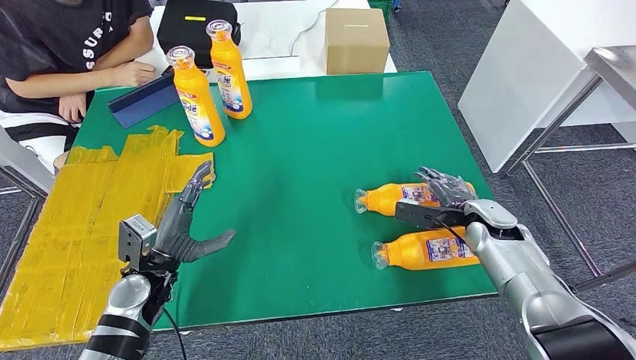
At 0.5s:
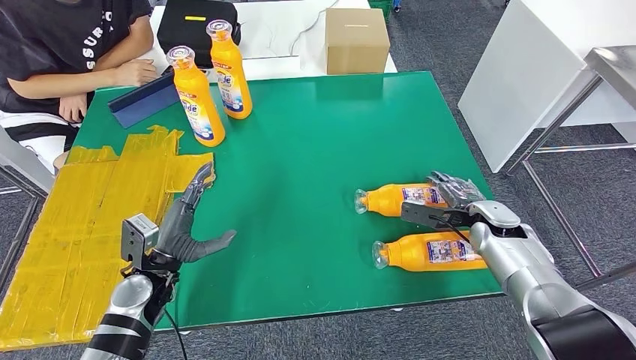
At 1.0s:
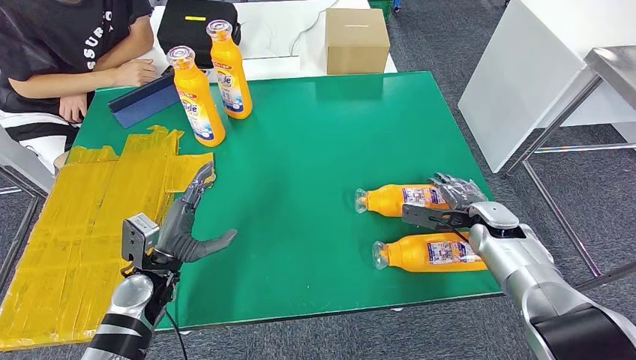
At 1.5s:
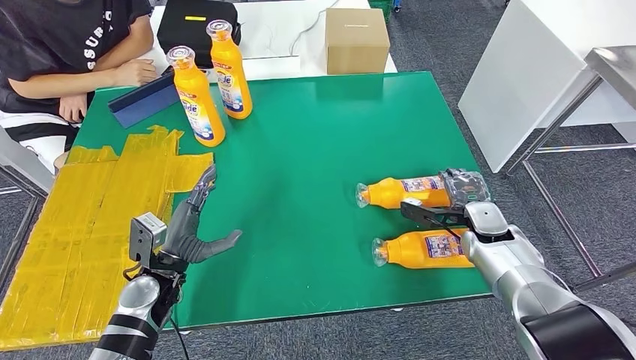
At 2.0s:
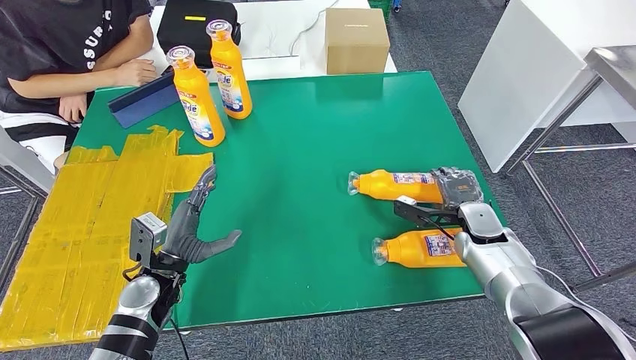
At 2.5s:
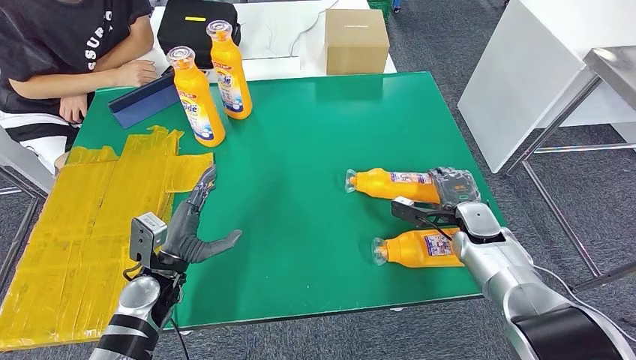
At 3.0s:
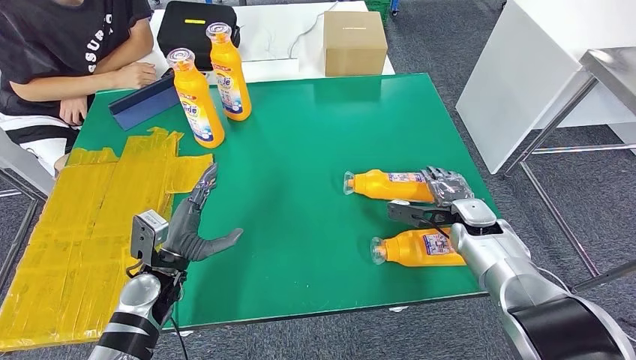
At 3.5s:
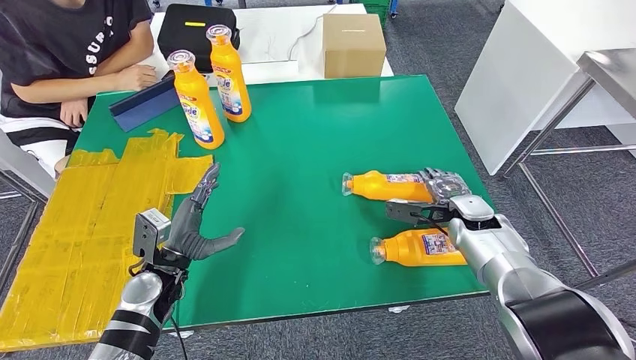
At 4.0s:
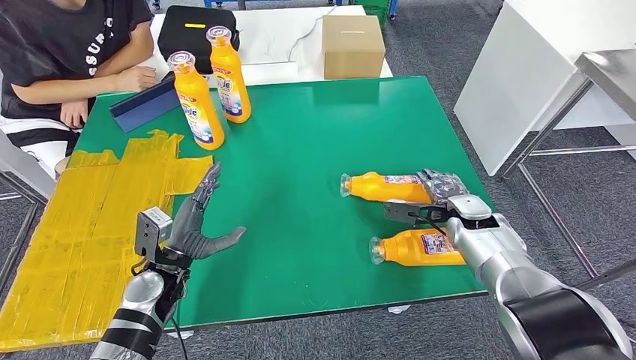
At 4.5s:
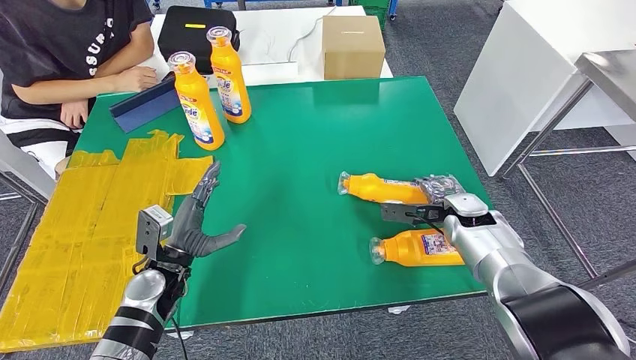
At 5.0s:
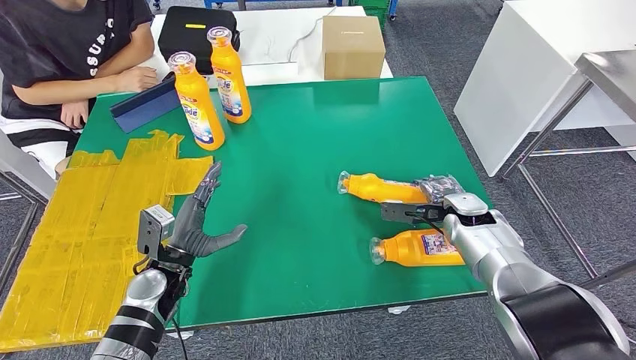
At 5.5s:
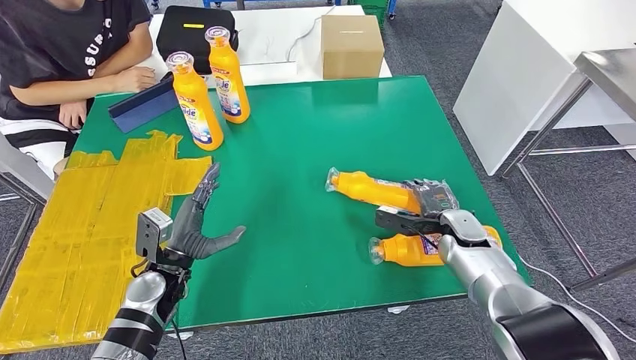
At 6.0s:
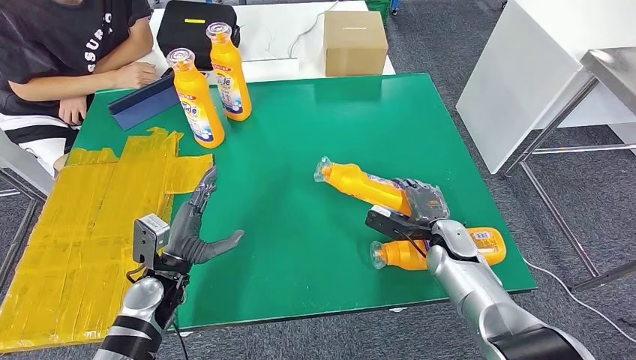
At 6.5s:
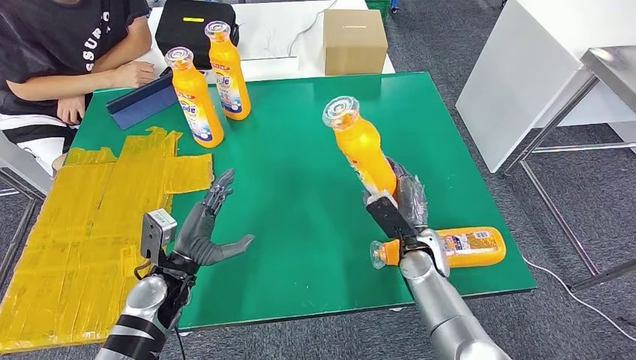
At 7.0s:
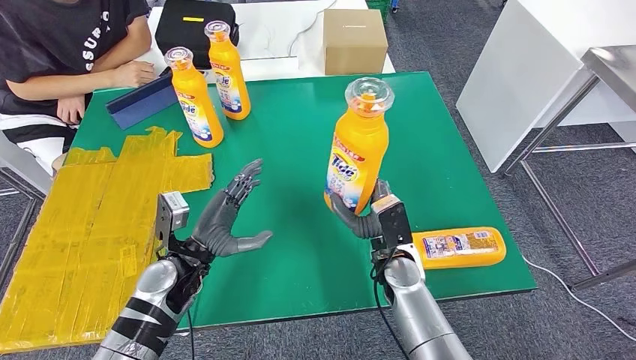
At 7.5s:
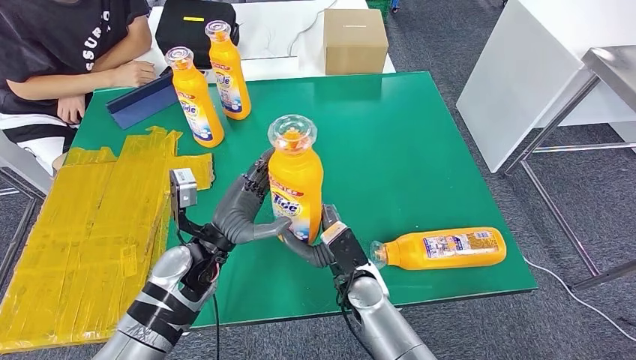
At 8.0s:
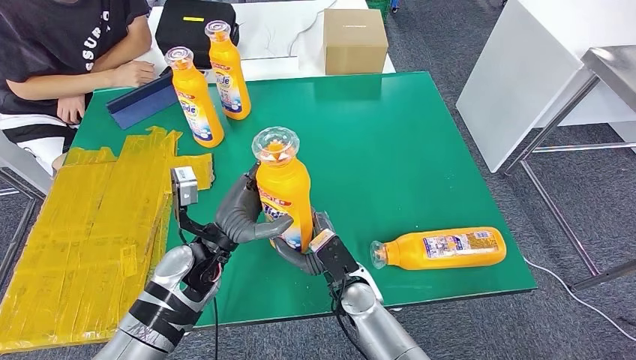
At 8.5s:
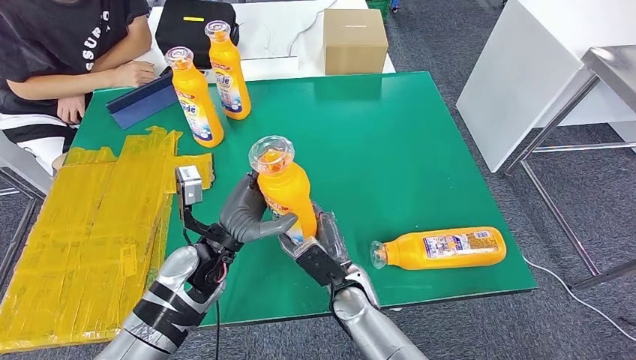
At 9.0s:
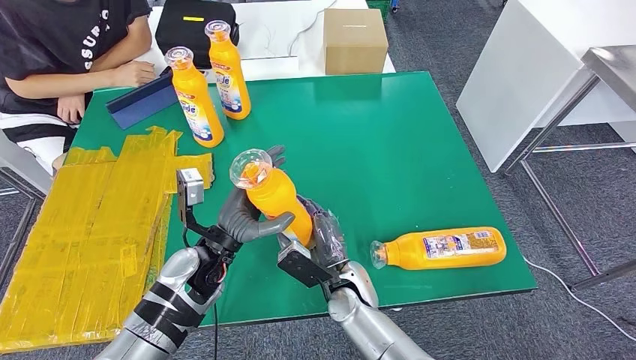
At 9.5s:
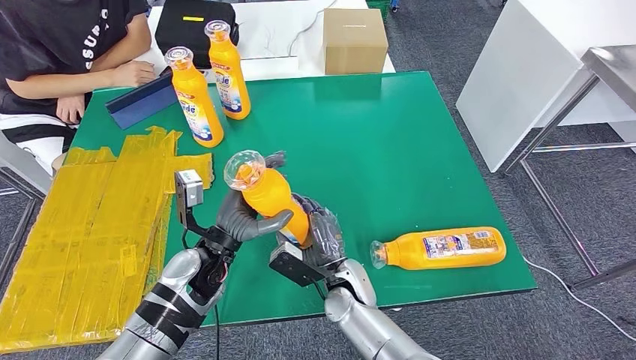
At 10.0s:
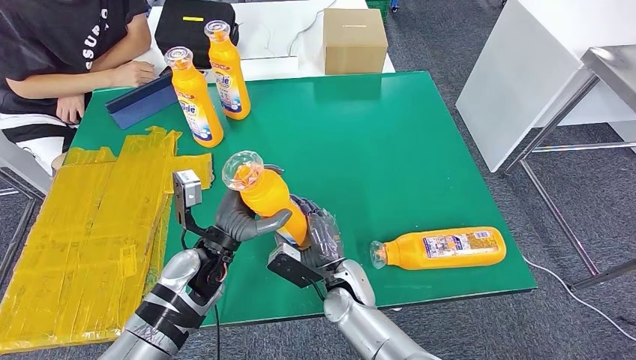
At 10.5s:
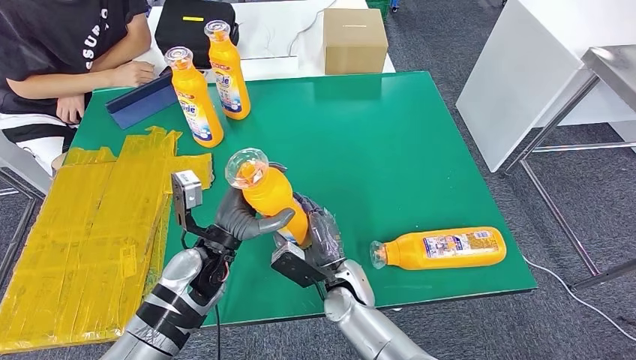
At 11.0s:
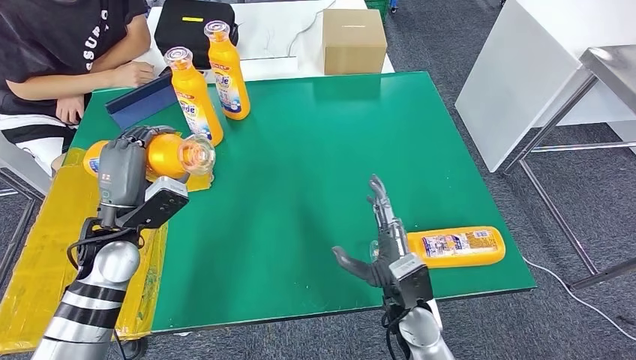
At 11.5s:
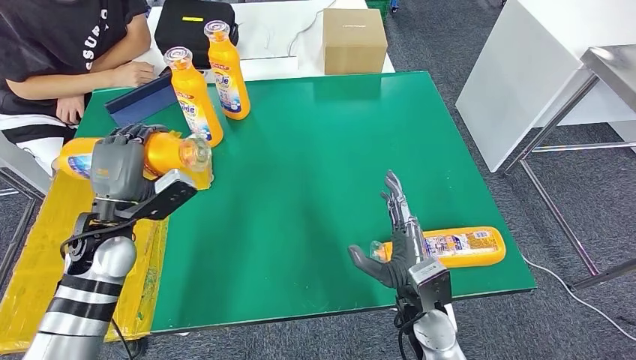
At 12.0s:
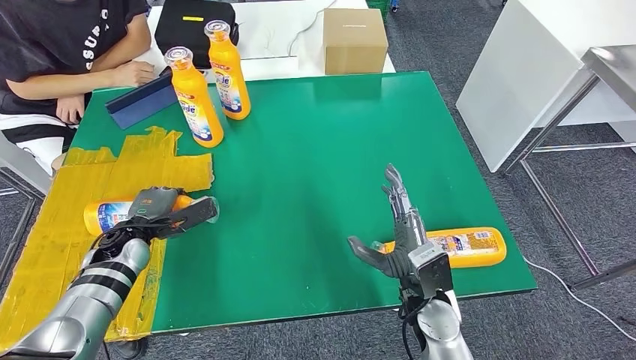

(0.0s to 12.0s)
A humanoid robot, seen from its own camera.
Step, 0.0s - 8.0s: Pick up the bottle from the table.
10.0s - 12.0s: The left hand is displaced to the left by some 20 cm; the right hand shifts some 15 cm to the right and upward.

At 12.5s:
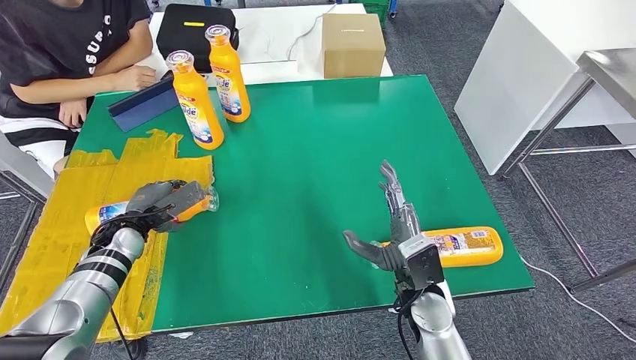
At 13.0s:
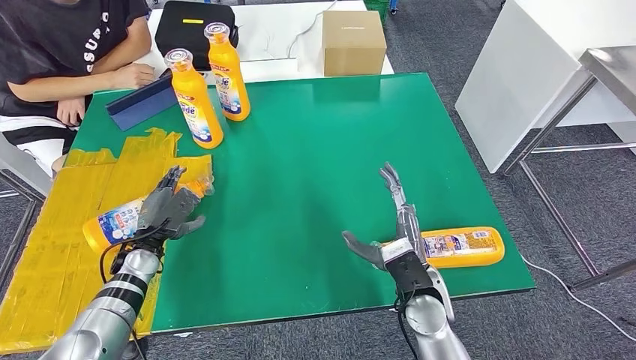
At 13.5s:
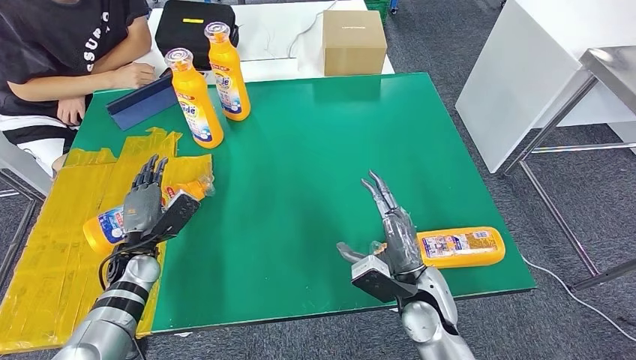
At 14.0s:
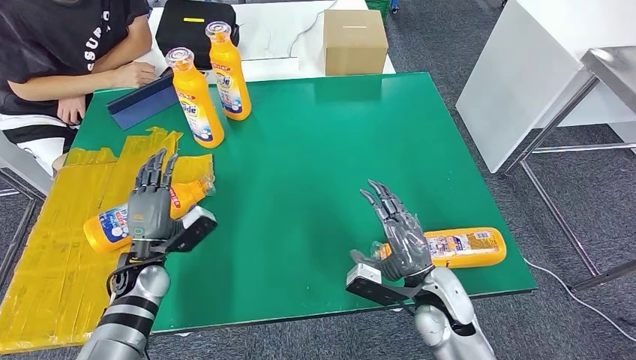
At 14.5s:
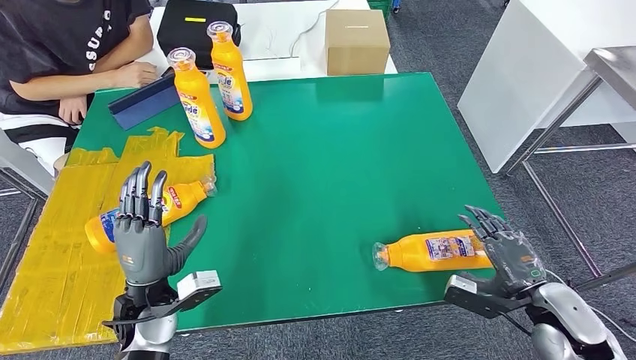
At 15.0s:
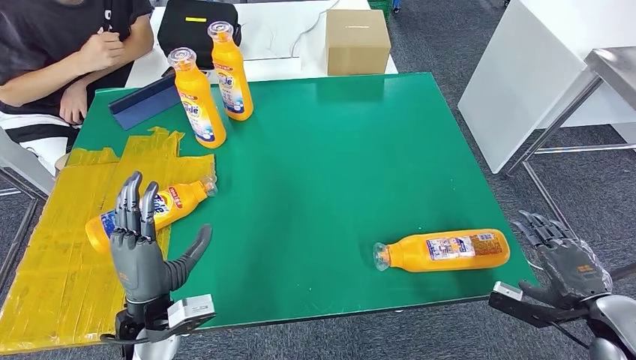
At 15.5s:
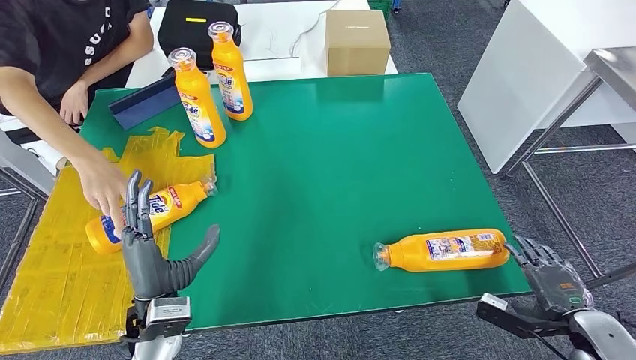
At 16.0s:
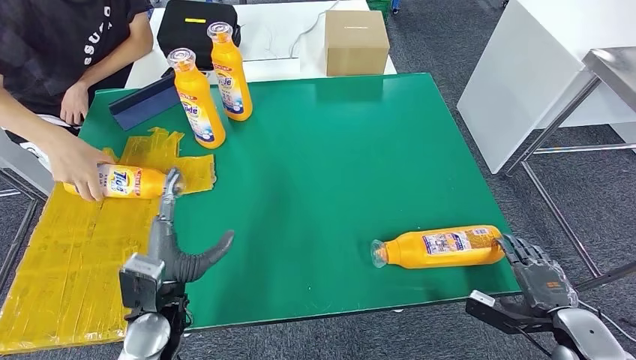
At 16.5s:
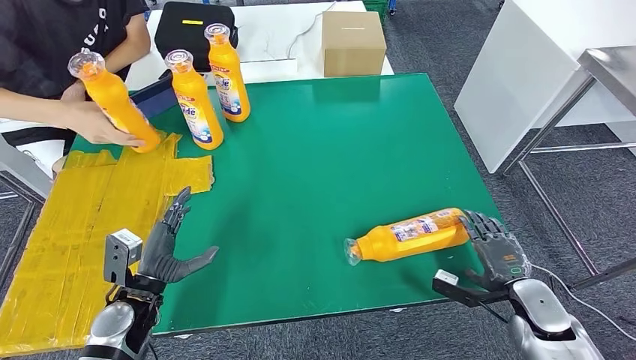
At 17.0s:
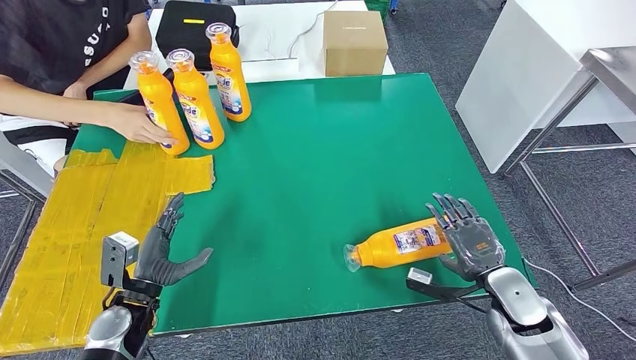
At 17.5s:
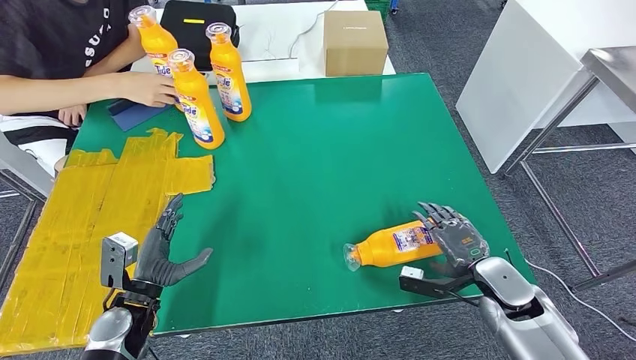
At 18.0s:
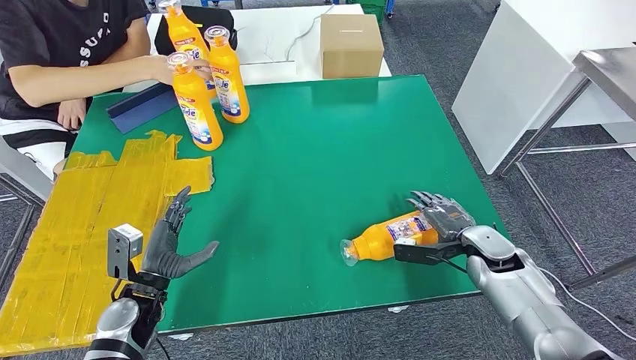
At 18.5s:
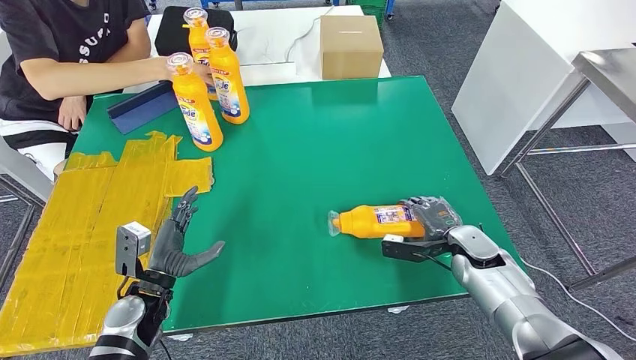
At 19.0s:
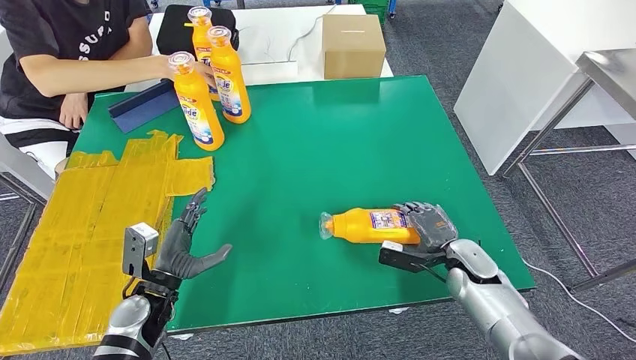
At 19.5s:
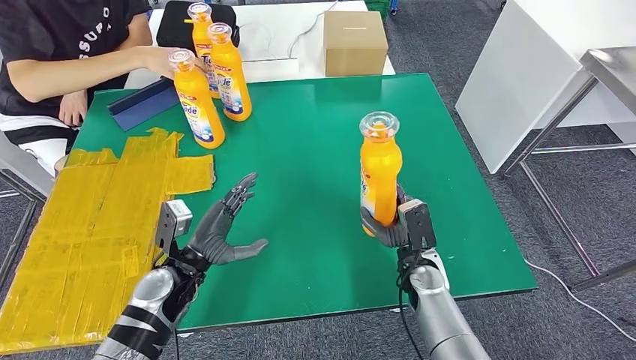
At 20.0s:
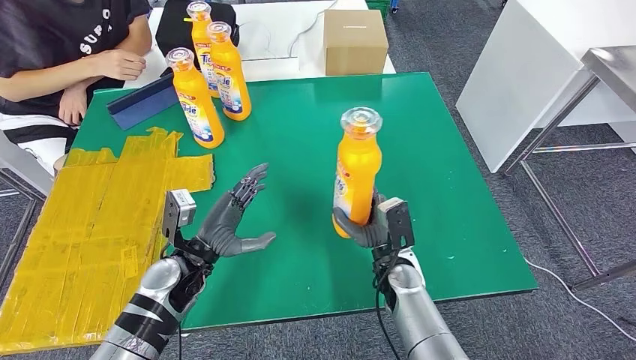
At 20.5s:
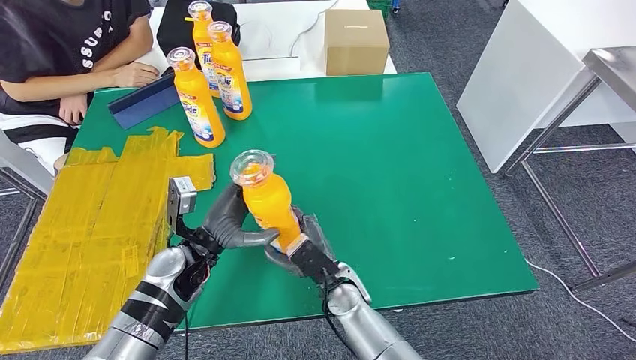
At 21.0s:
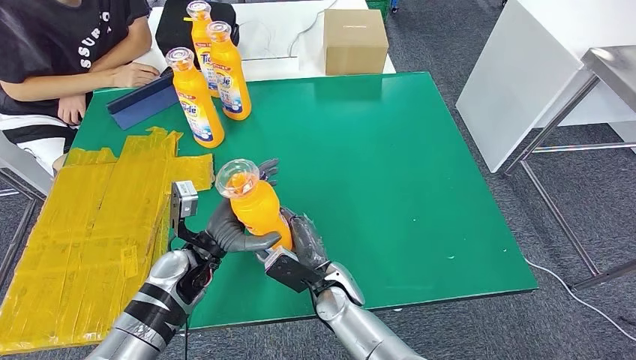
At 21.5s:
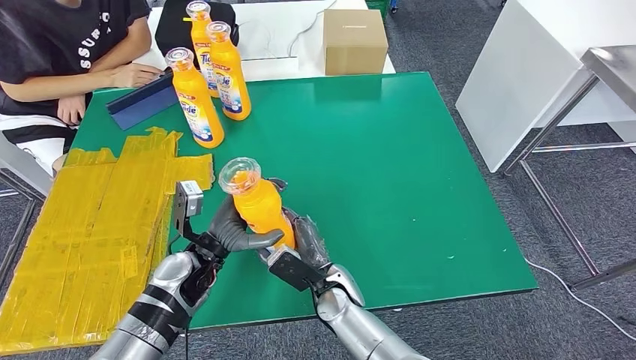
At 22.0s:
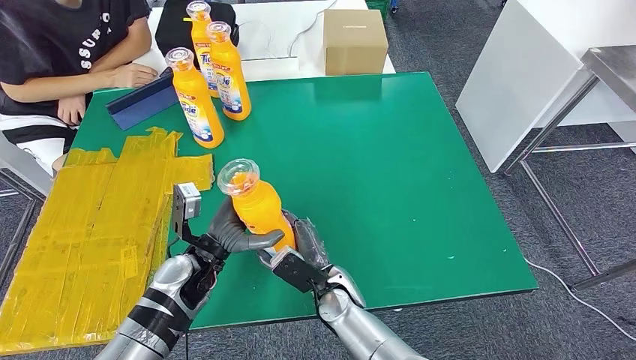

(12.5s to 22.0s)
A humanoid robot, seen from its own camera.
Step, 14.5s - 19.5s: Pick up the bottle from the table.
16.5s - 18.0s: The right hand shifts roughly 10 cm forward and to the left.
20.0s - 22.0s: The right hand travels to the left by roughly 10 cm.
